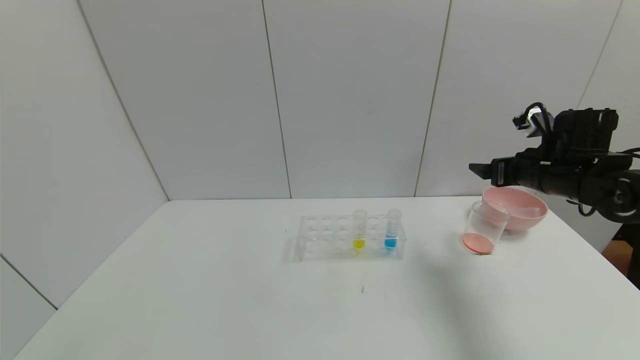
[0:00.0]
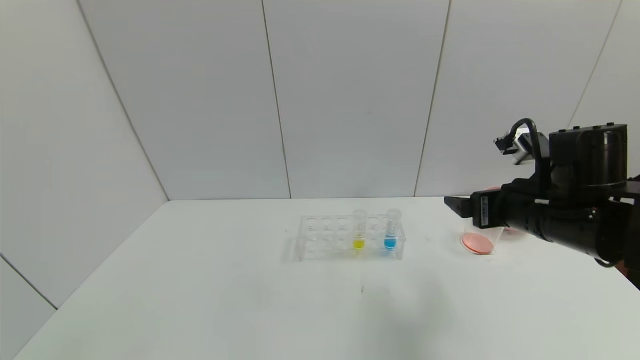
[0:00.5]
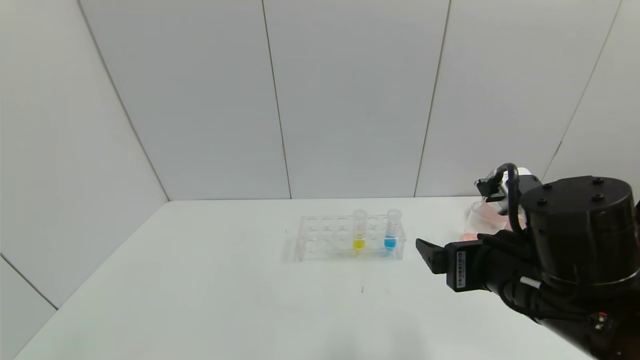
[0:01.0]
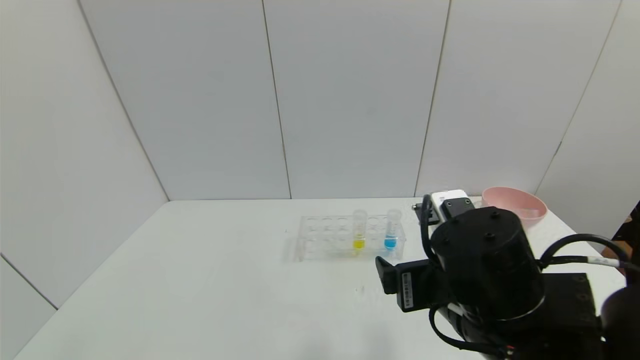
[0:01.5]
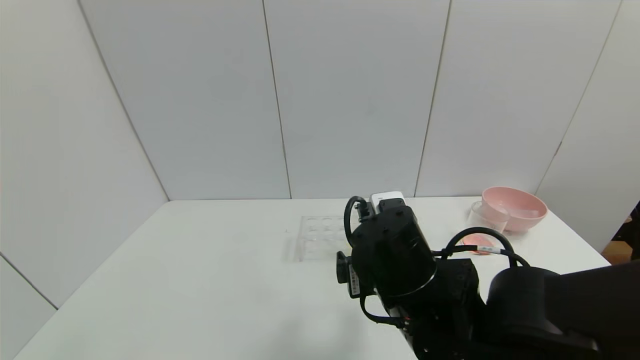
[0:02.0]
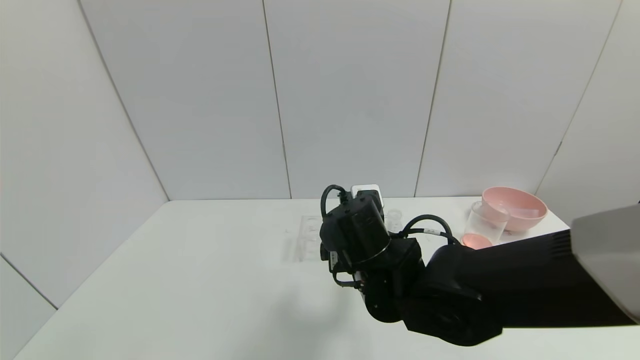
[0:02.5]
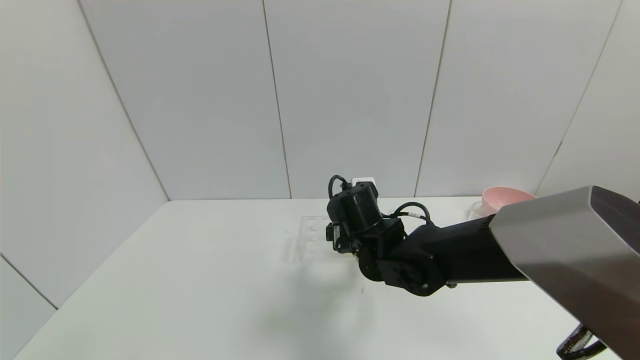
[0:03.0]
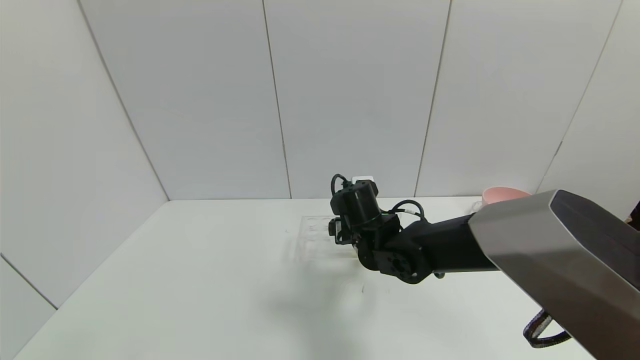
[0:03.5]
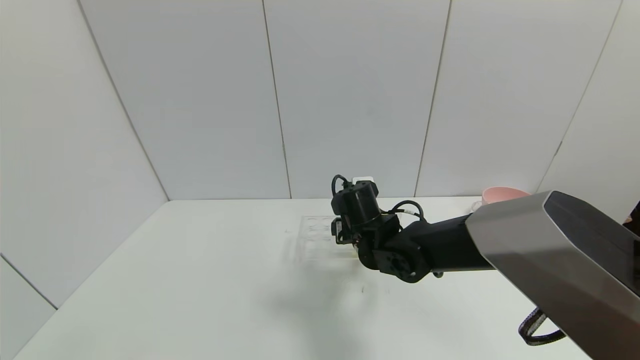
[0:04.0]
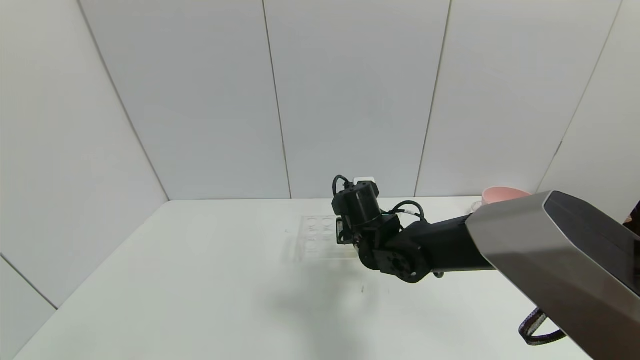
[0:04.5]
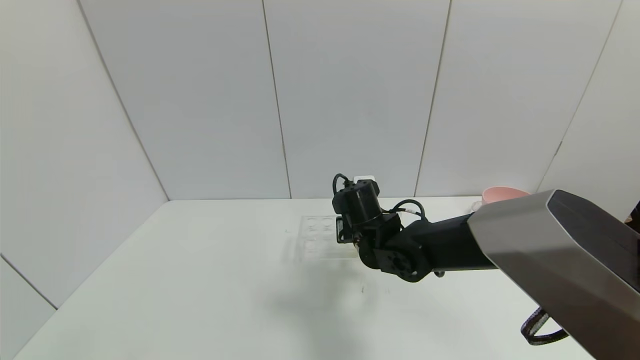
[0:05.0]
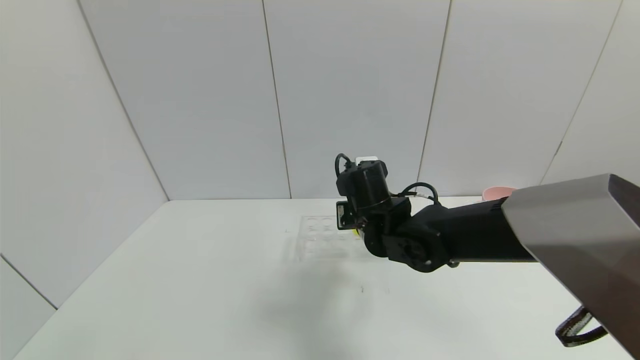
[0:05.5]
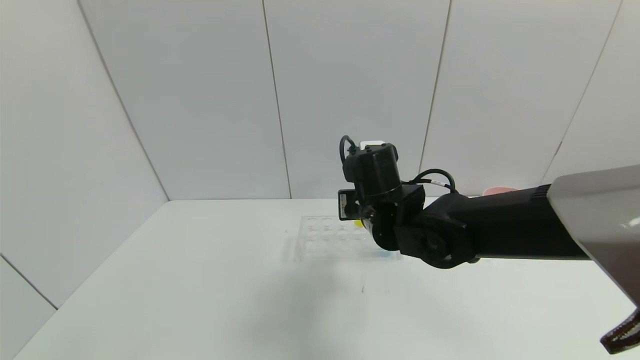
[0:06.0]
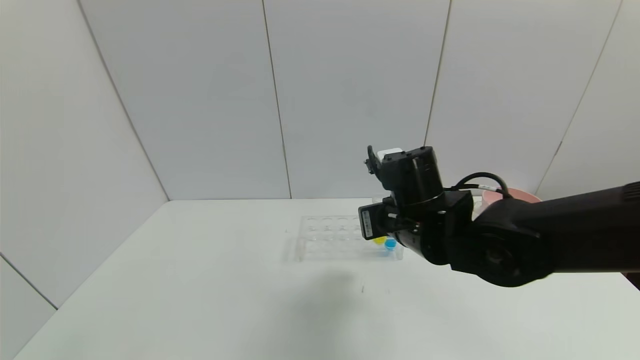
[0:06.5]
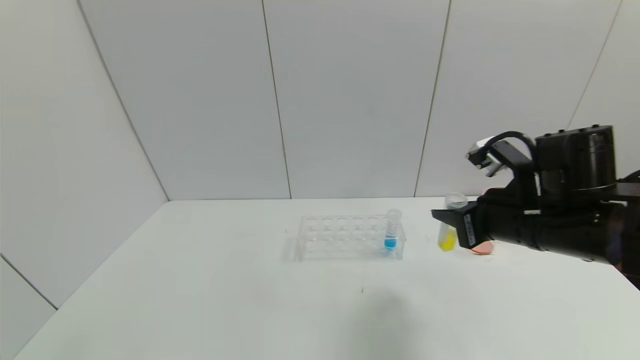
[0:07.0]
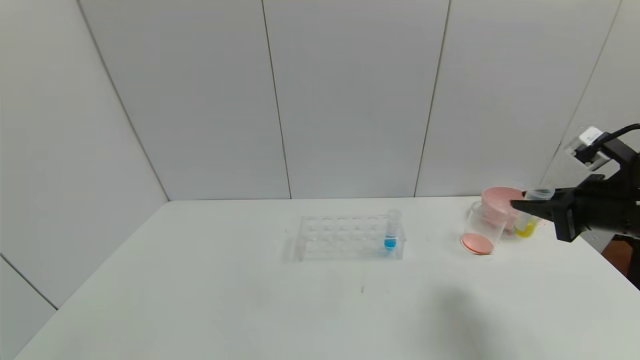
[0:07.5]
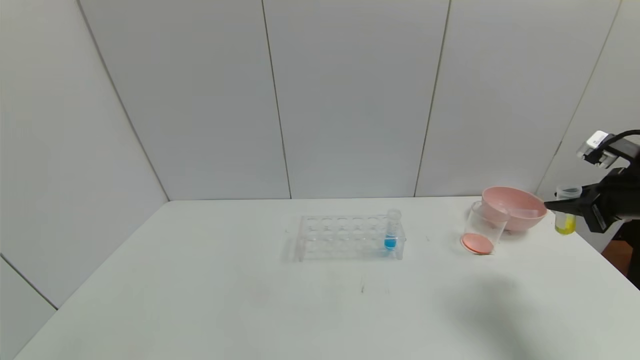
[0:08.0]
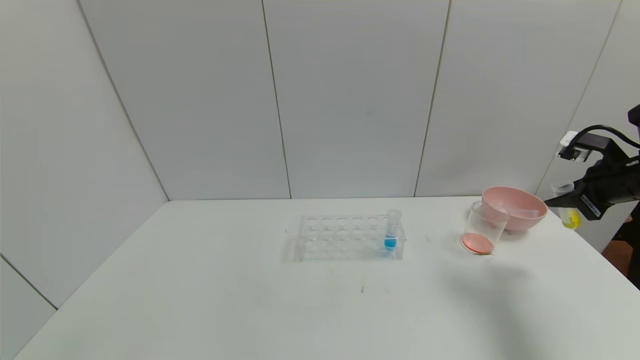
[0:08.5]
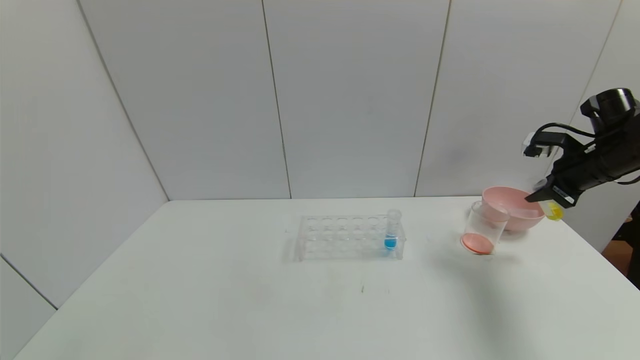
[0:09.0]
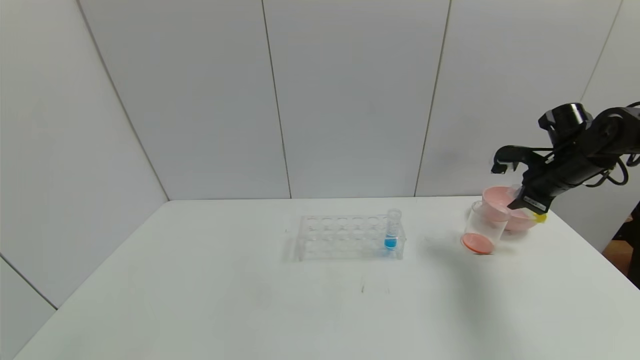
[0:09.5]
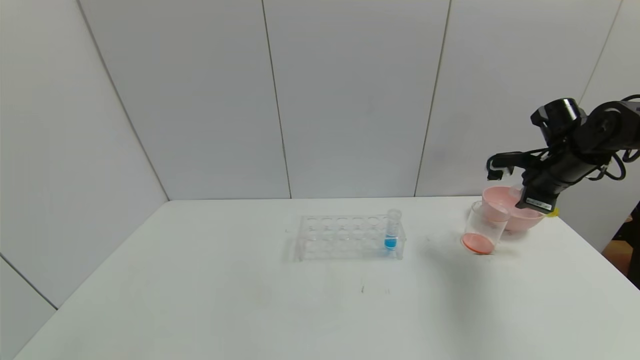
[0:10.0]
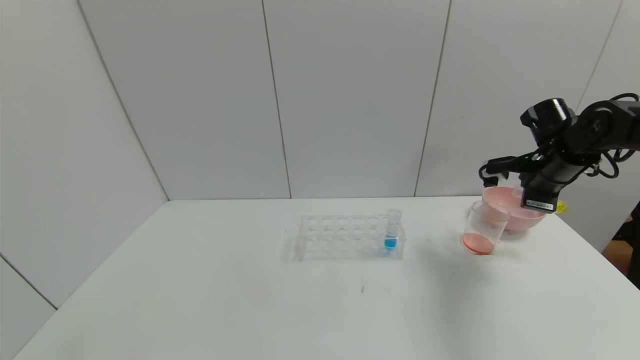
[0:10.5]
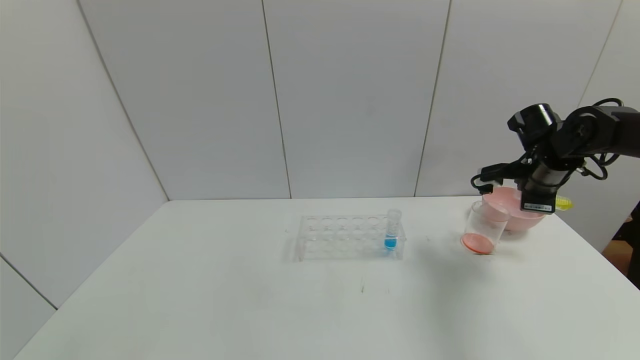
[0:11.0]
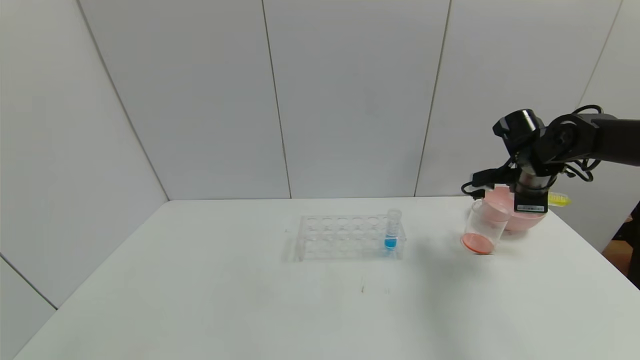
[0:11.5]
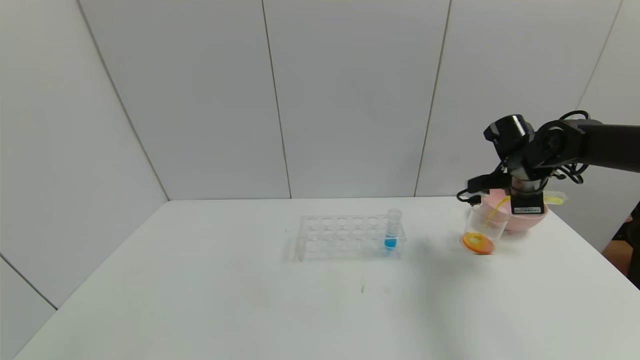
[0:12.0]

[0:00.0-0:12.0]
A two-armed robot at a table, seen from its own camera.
Task of the whole recording: pick up the test tube with yellow pigment and the test tube with red pigment by grippers and pour them into the beaker.
Step, 0:00.0 to 0:04.5: Grasp the yellow reagent with the right gripper.
0:00.0 to 0:02.0: The right gripper shifts some 30 cm to the left and backward.
0:02.0 to 0:04.0: The right gripper travels forward by some 15 cm.
0:04.0 to 0:06.0: The right gripper shifts approximately 5 cm upward, and closes.
0:06.0 to 0:08.0: The right gripper travels to the right by about 35 cm.
0:08.0 to 0:10.0: The right gripper moves forward, some 10 cm.
0:10.0 to 0:12.0: The right gripper shifts by about 5 cm.

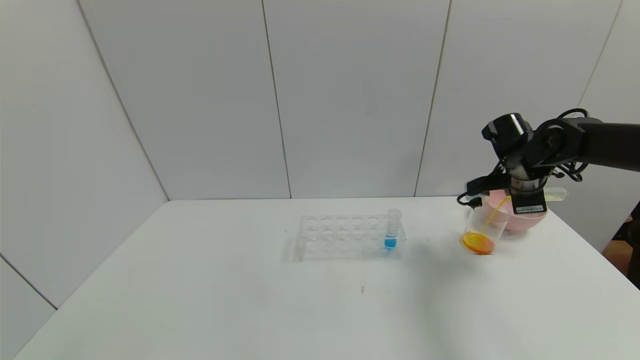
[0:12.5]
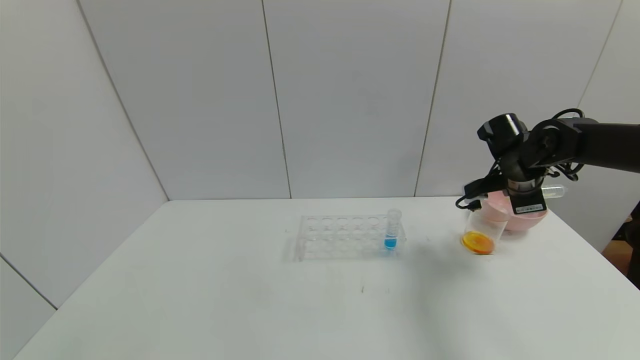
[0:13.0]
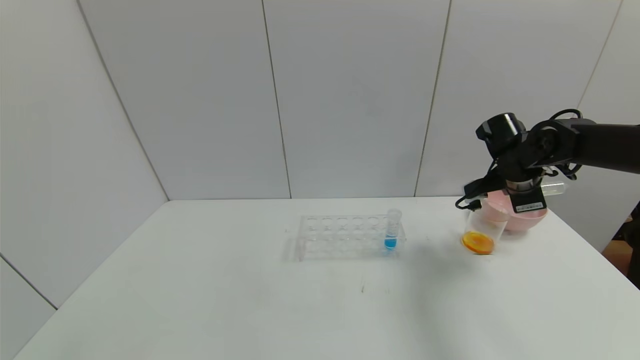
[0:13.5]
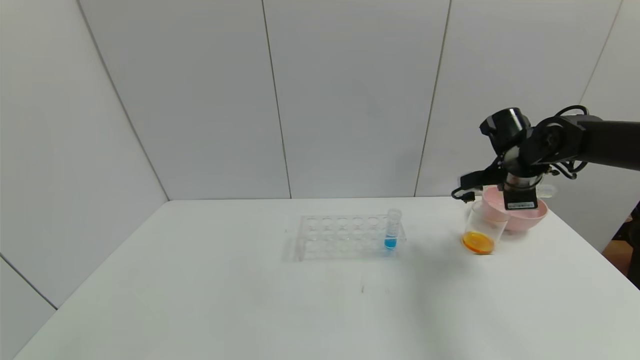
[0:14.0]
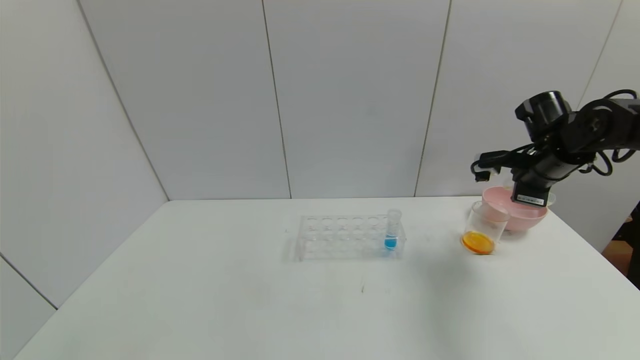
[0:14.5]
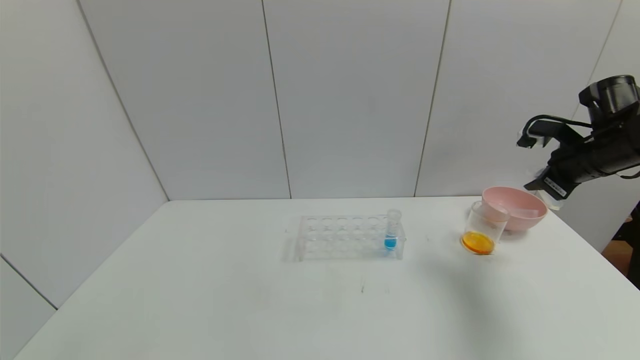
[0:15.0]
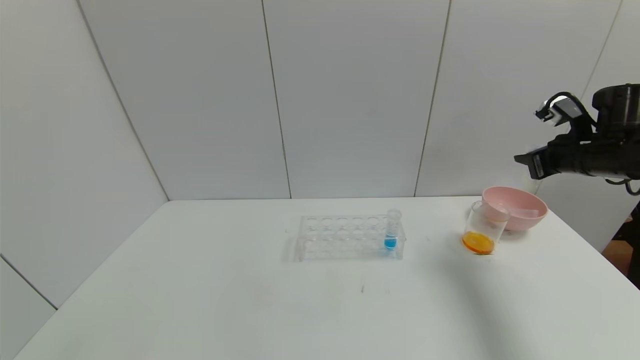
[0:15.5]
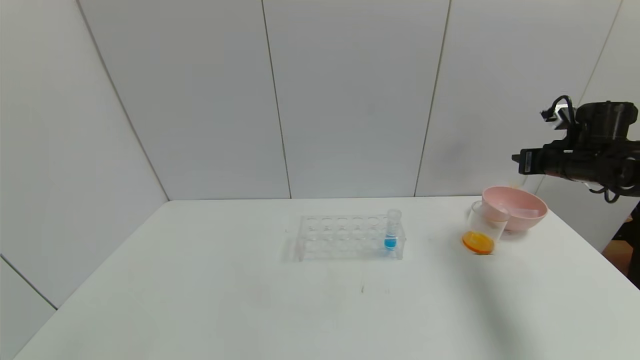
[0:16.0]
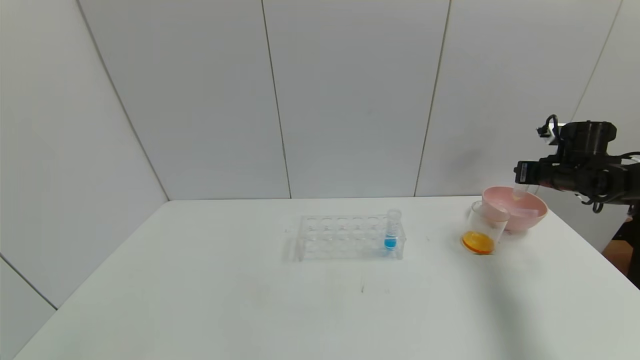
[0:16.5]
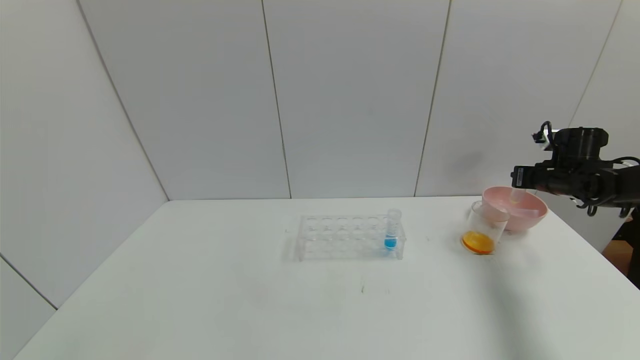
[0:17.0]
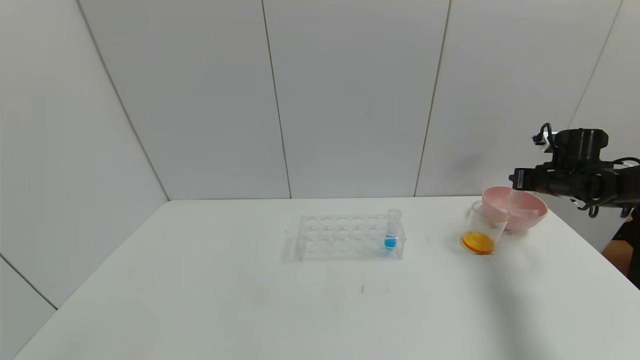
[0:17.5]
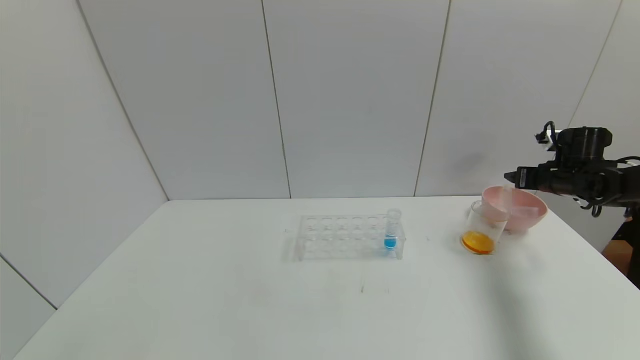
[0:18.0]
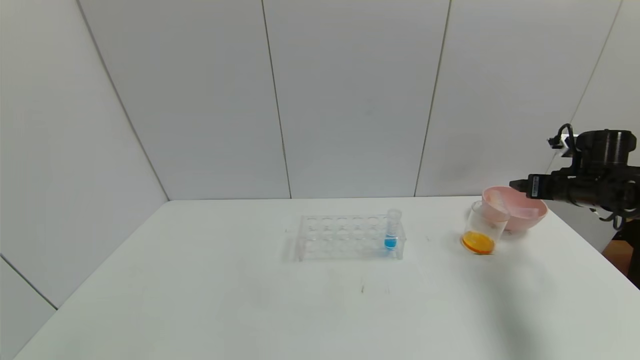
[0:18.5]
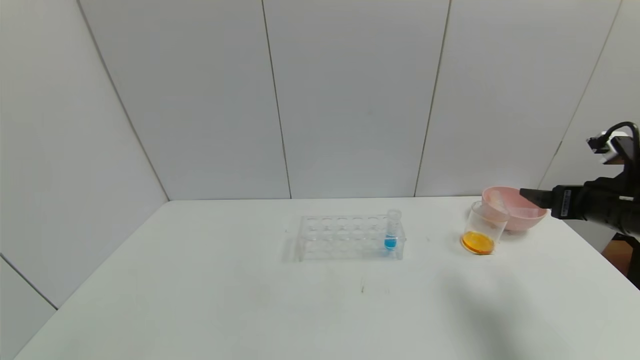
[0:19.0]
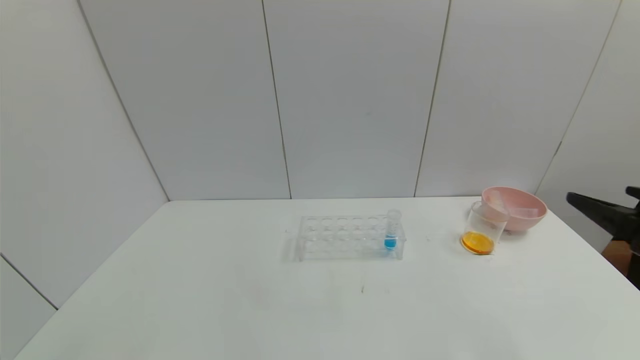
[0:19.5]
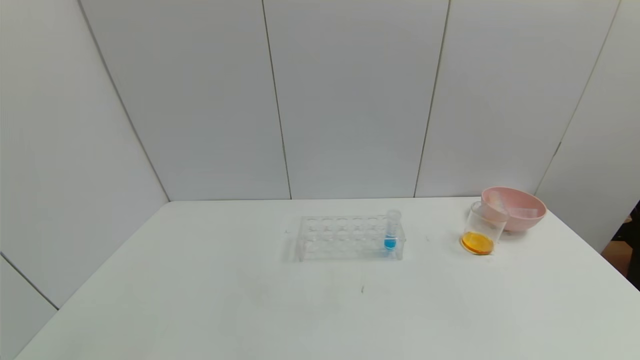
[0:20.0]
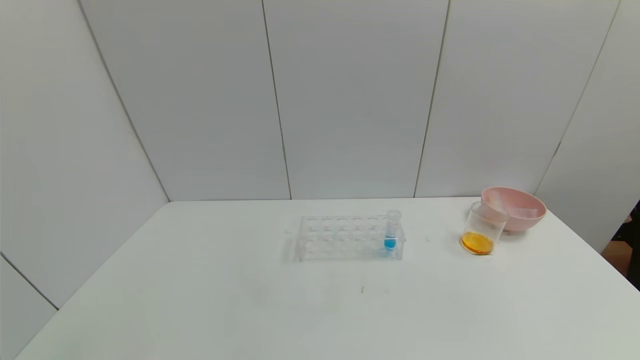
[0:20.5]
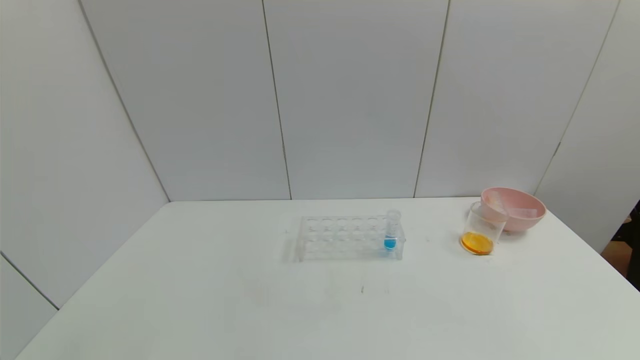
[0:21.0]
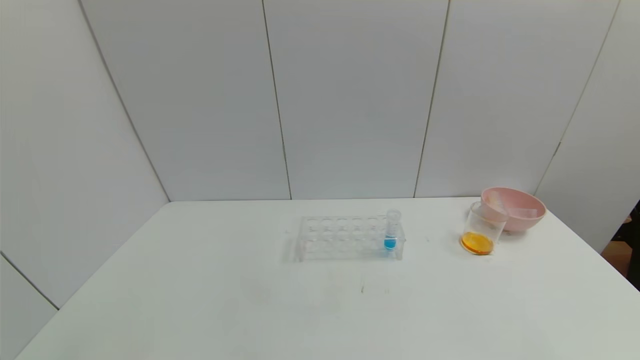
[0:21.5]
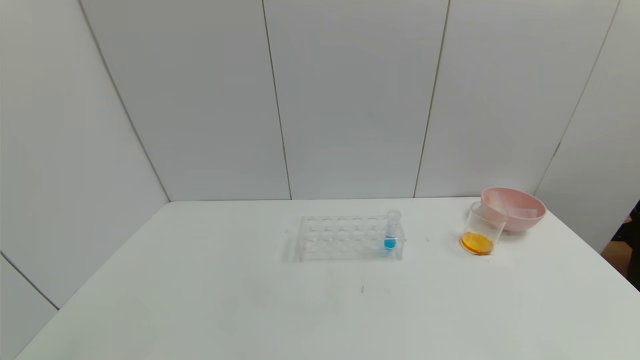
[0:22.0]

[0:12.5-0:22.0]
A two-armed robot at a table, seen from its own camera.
Task of the whole recording: pick up the test tube with yellow pigment and the test tube with red pigment by grippers and pour them into the beaker.
Step, 0:14.5 to 0:17.5: Place the test tube into the pink bowl with the right gripper.
0:14.5 to 0:16.5: The right gripper shifts approximately 10 cm to the right and downward.
0:16.5 to 0:18.0: The right gripper opens its fingers.
0:18.0 to 0:20.0: The right gripper shifts approximately 40 cm backward.
